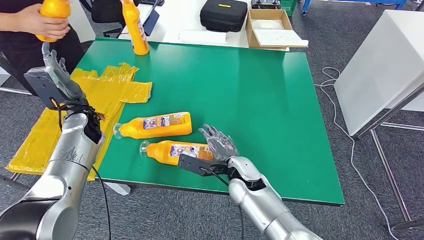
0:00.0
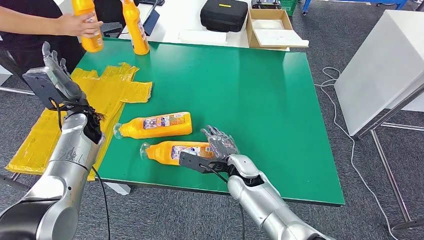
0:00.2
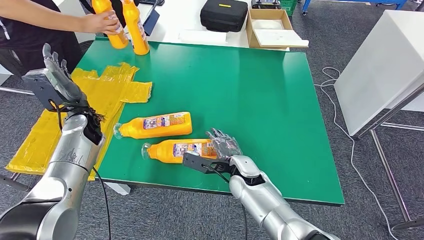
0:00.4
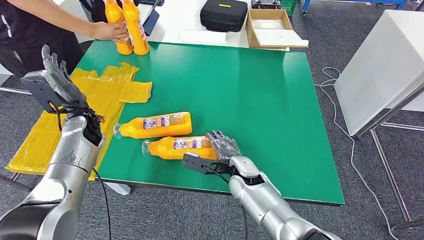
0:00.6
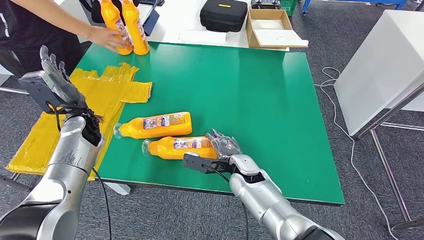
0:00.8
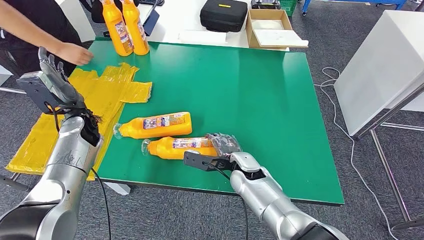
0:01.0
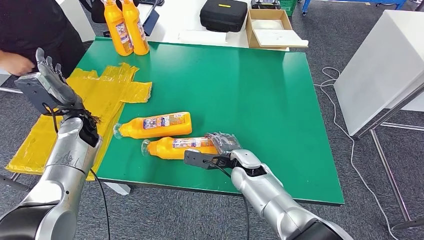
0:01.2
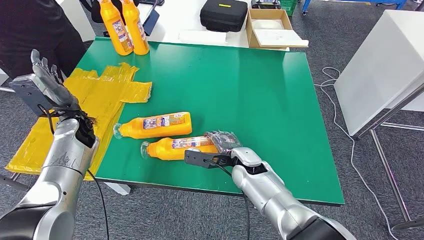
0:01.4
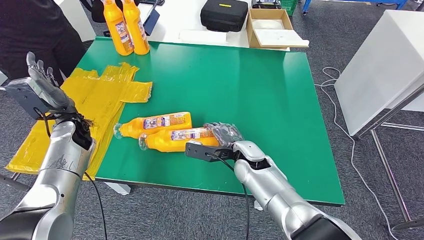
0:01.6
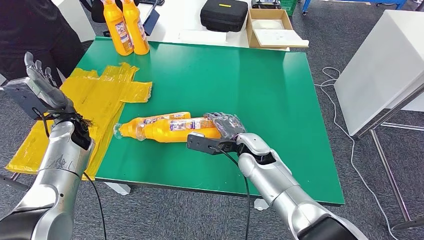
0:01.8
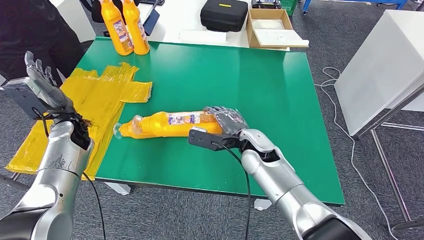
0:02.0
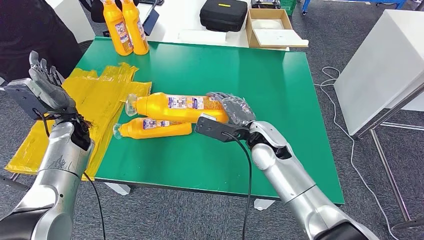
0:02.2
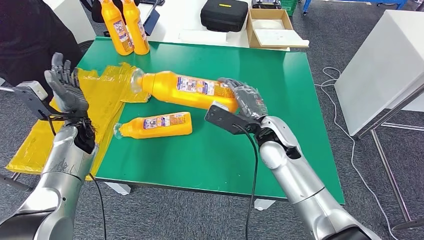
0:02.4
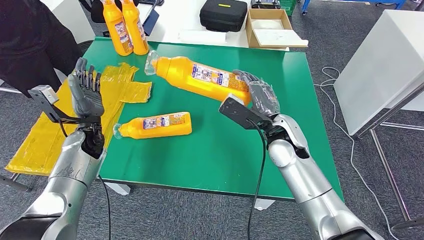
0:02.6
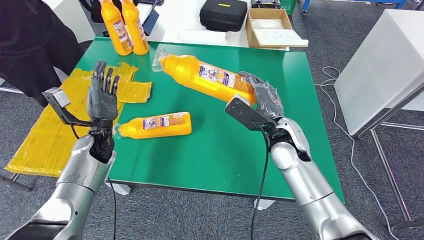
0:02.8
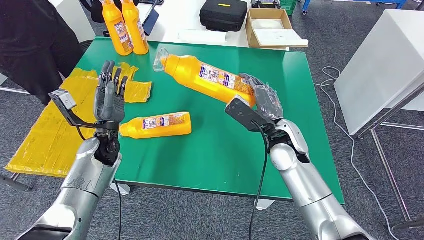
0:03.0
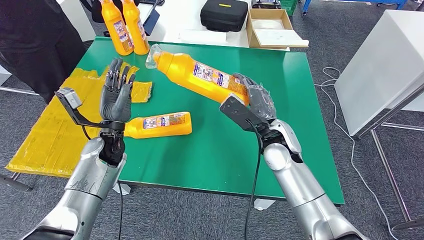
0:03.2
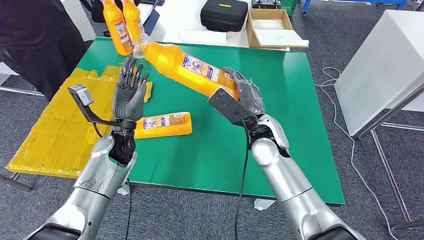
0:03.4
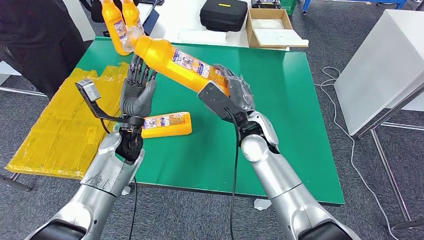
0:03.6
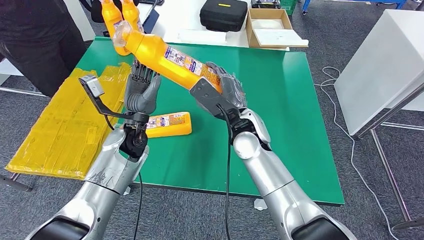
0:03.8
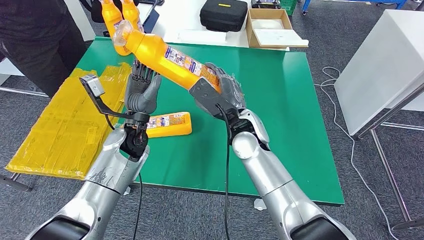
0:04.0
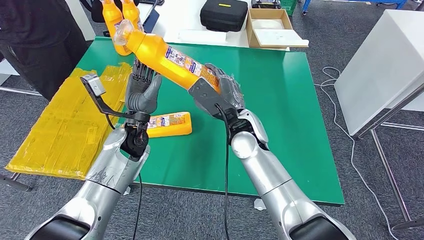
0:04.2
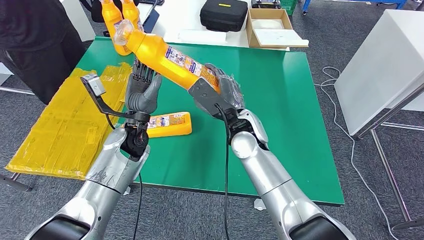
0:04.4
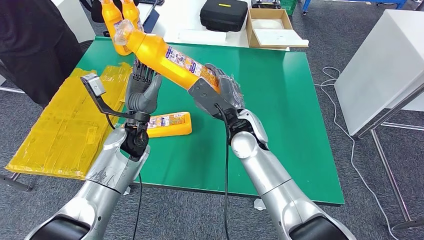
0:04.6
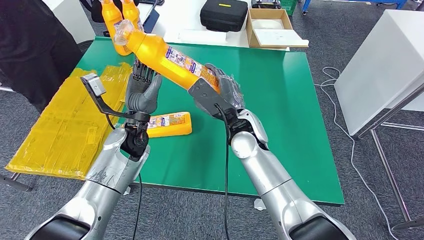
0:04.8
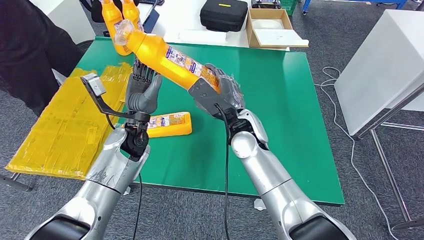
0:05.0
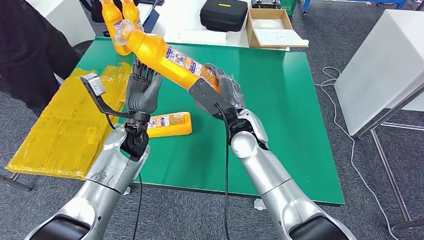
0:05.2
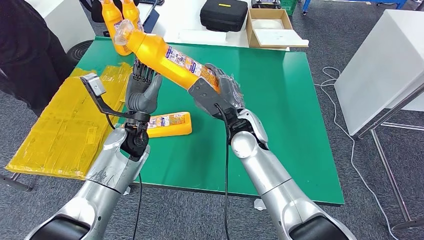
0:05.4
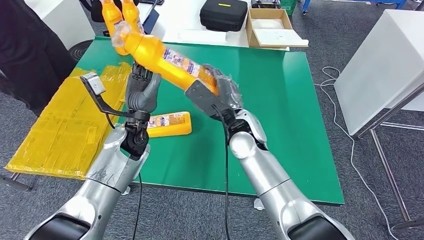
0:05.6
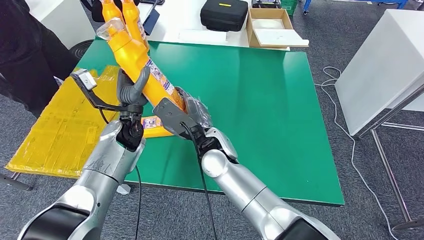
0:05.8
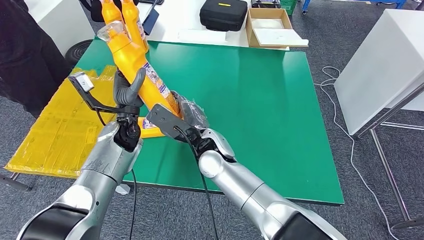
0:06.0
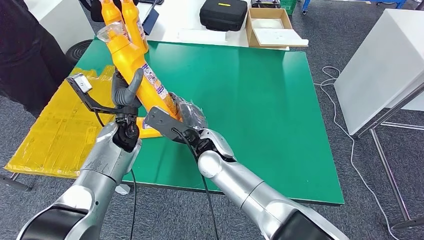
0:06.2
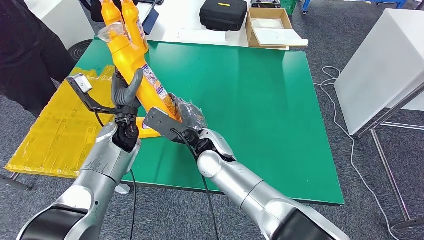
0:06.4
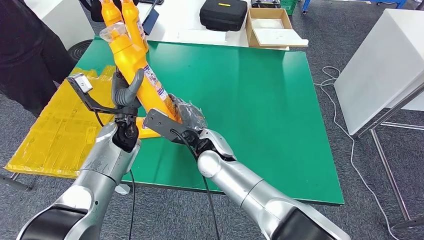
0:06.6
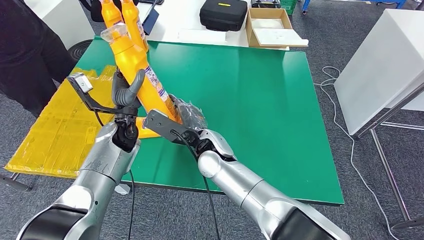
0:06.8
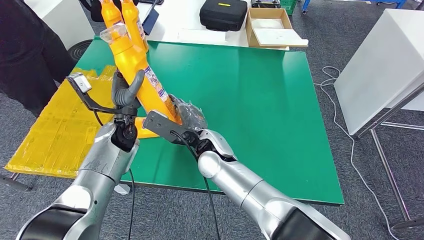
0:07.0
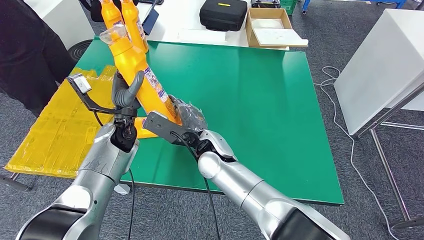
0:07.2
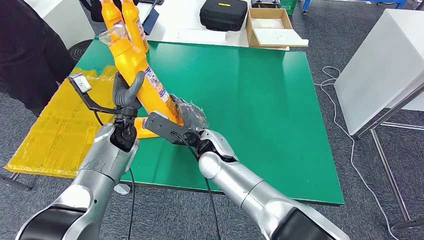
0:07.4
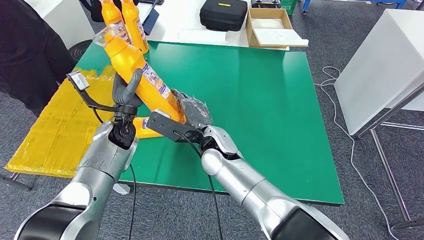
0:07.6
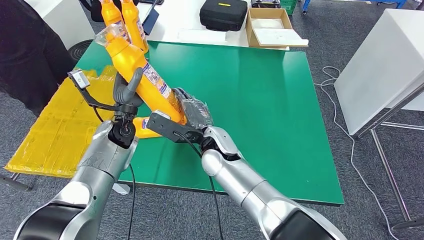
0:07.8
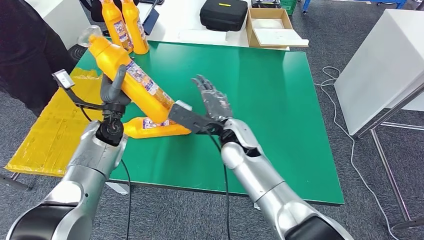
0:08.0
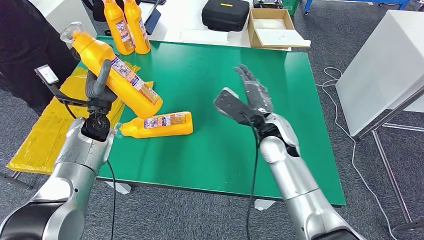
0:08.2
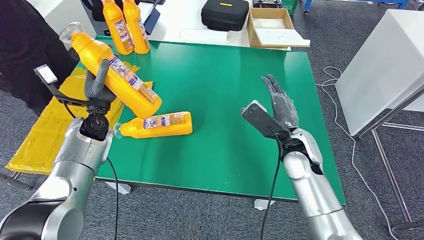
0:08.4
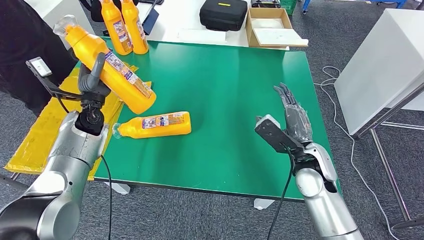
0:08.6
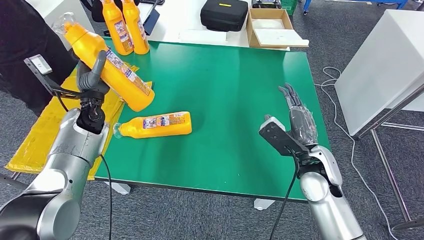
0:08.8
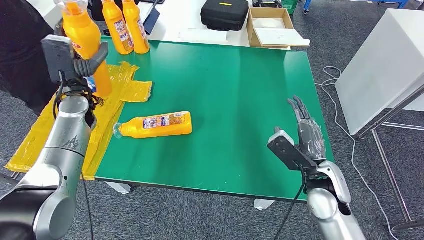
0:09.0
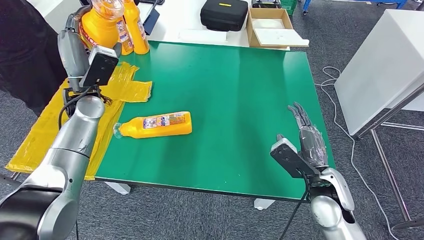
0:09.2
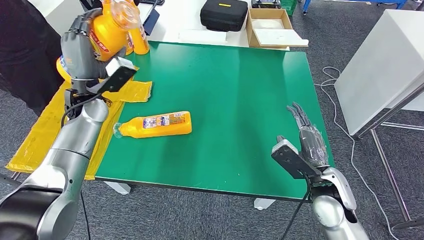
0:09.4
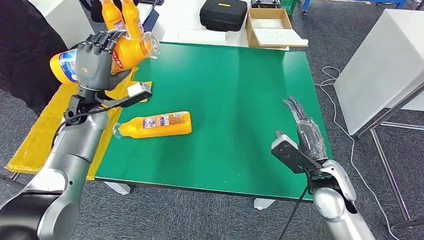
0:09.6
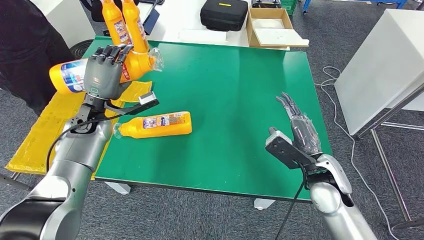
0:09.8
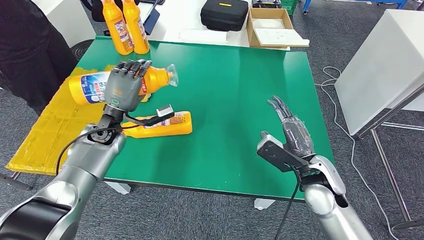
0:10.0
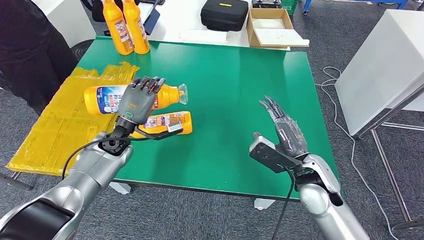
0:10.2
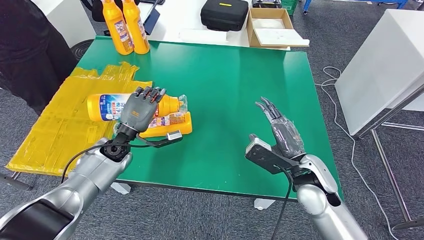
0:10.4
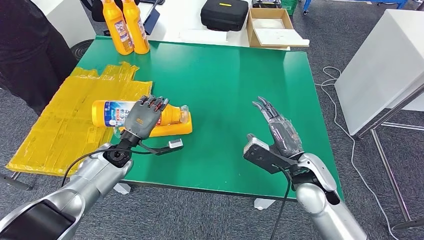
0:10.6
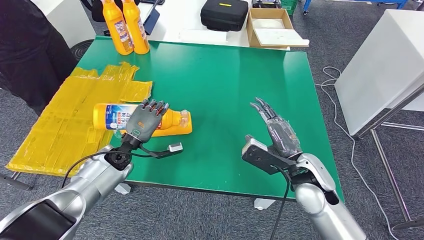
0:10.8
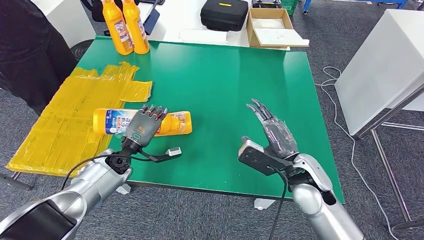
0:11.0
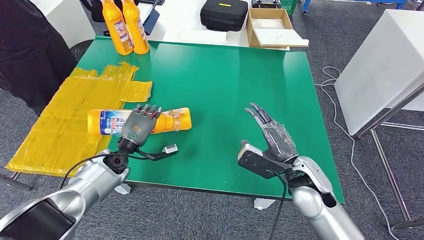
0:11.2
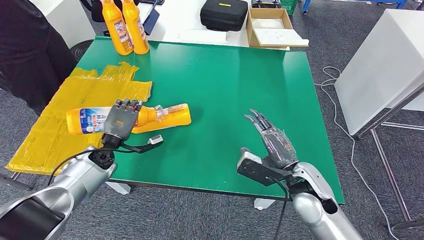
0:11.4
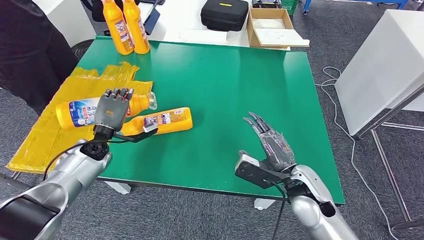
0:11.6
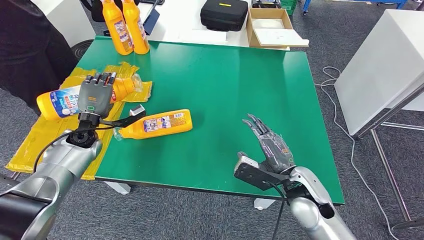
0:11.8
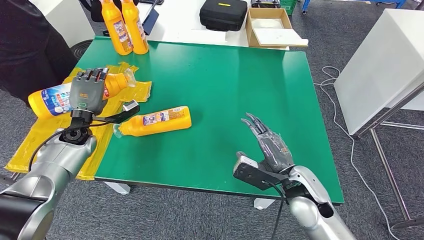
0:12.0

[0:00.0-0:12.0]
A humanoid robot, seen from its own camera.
Step, 0:00.6 to 0:07.0: Pick up the fast-moving consumer goods bottle from the table.
0:06.0 to 0:07.6: The hands move only a little.

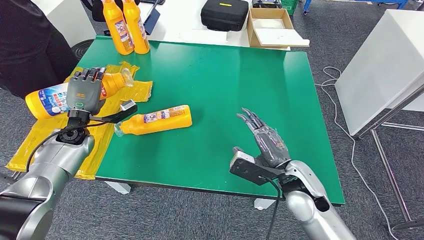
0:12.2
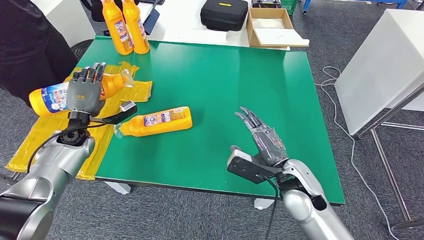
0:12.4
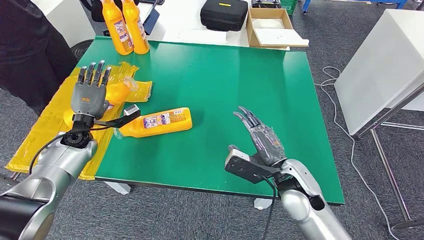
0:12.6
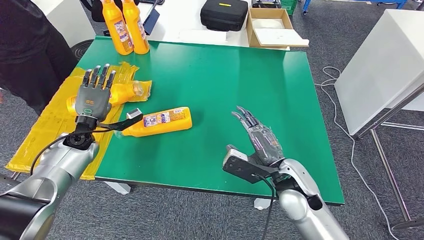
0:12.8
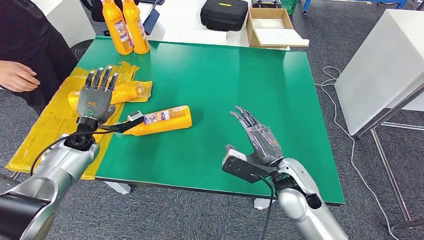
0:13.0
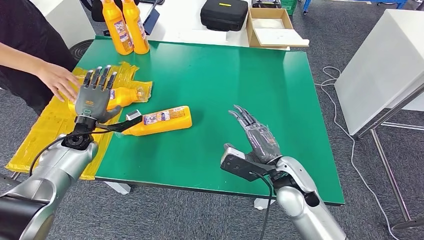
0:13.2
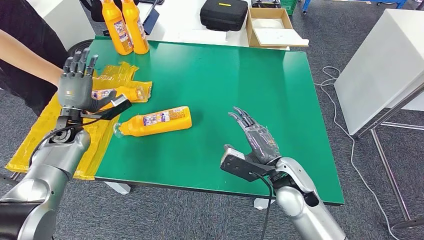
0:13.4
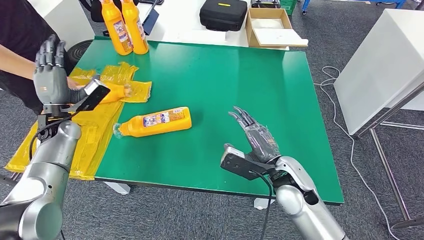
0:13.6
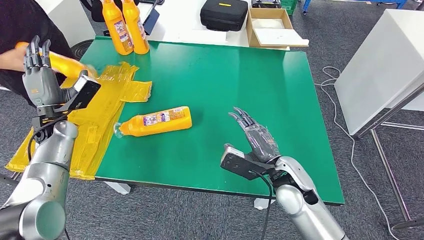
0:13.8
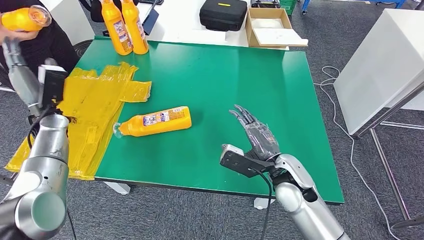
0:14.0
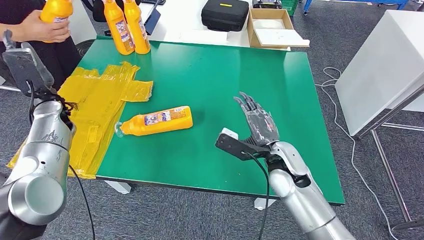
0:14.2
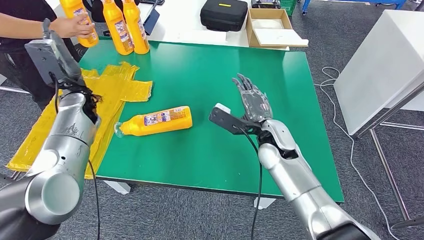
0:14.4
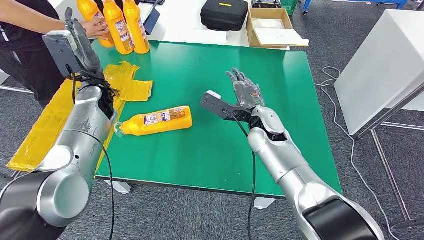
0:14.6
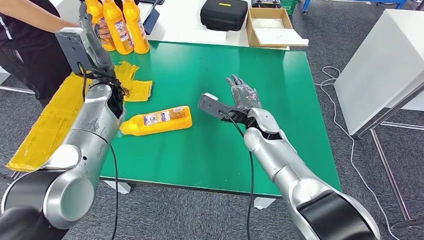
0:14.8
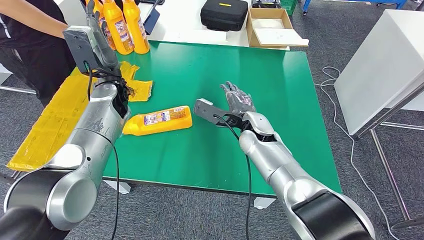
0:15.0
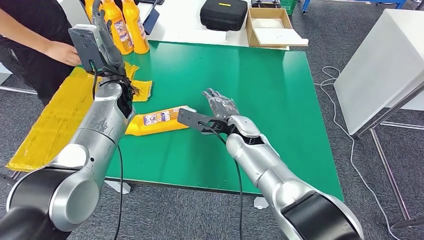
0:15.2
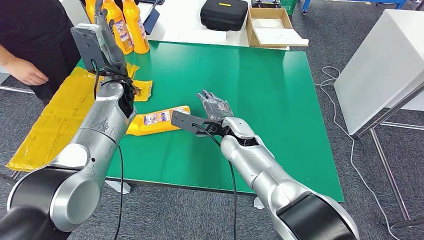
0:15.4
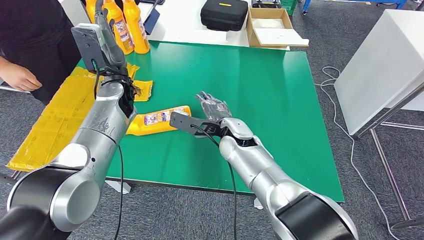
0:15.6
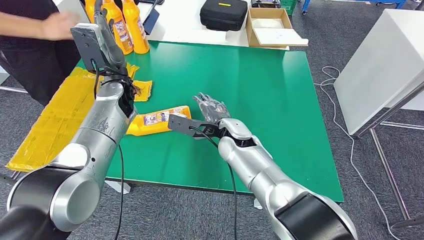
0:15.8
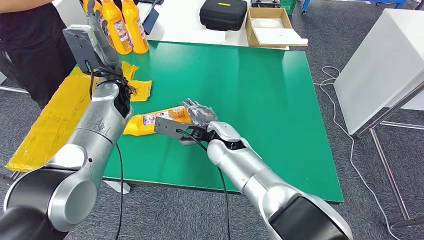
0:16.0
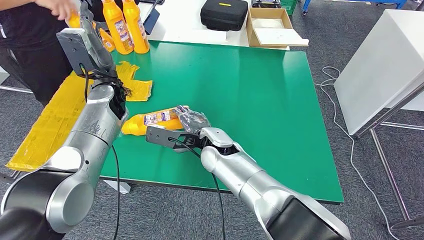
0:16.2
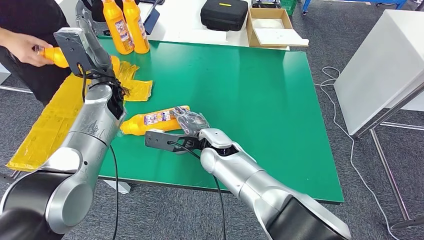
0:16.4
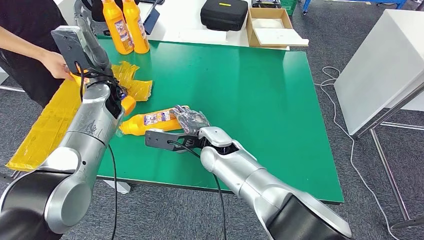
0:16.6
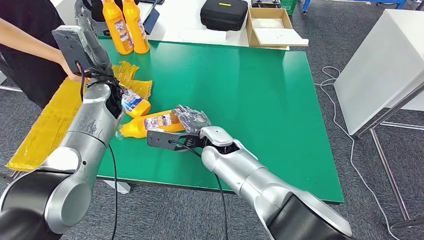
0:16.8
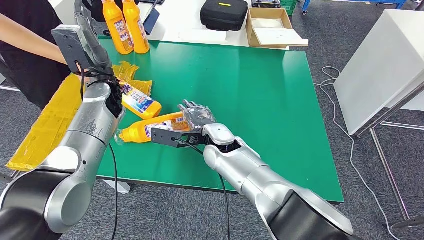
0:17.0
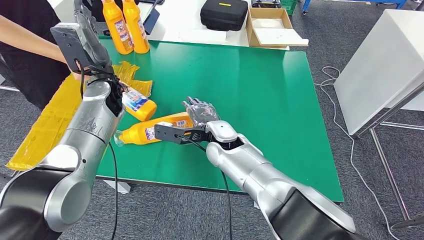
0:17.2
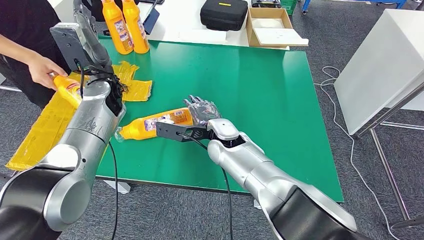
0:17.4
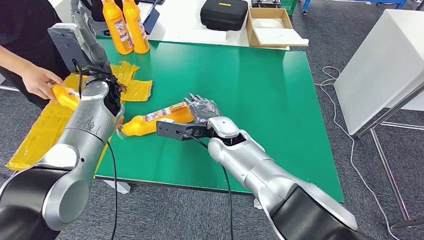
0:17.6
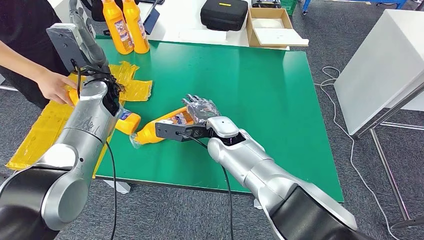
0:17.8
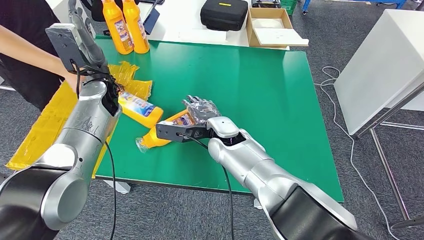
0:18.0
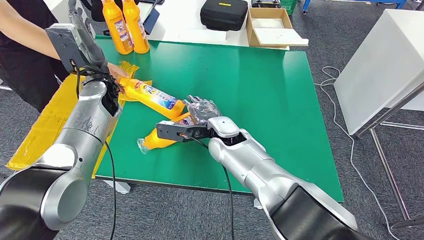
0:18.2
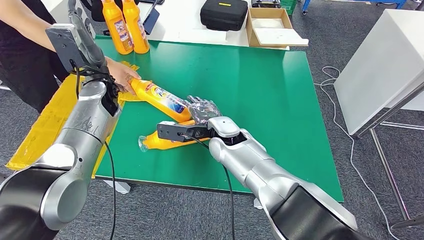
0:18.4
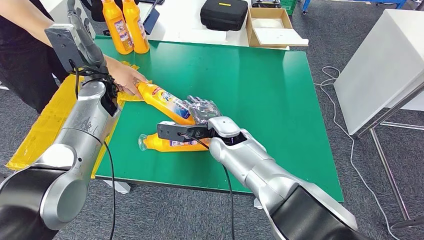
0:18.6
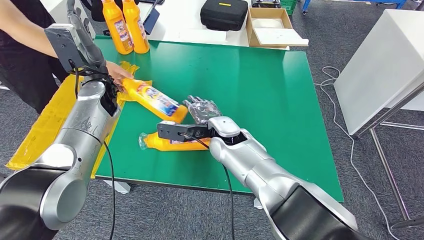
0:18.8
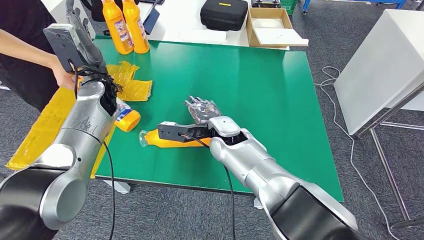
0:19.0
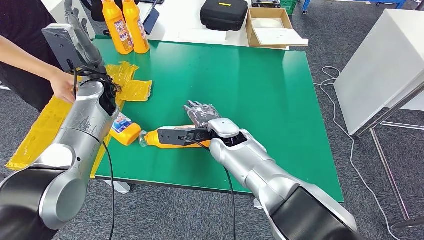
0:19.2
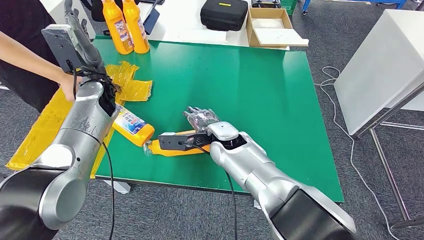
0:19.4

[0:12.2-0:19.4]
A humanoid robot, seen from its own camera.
0:16.6 to 0:19.4: The hands move only a little.
